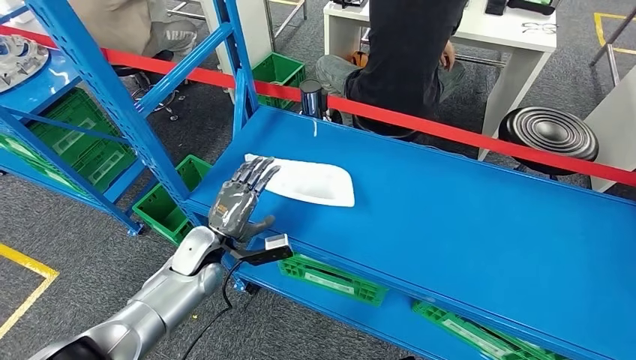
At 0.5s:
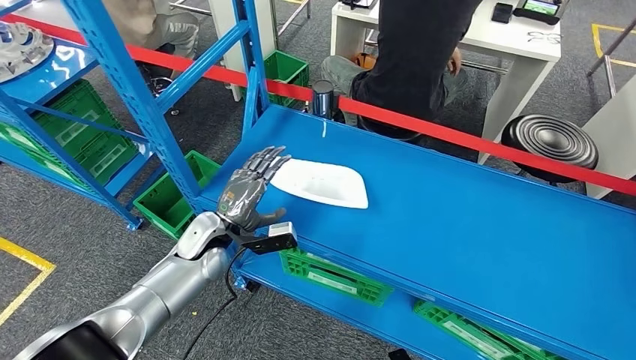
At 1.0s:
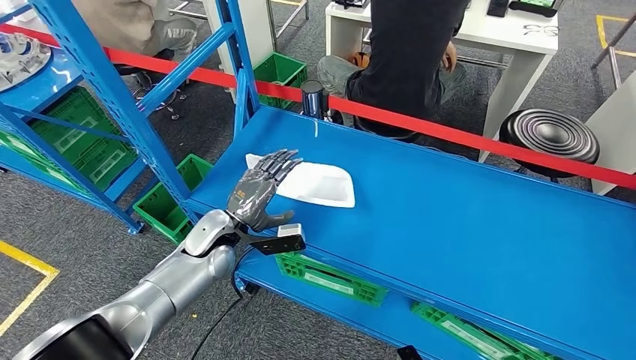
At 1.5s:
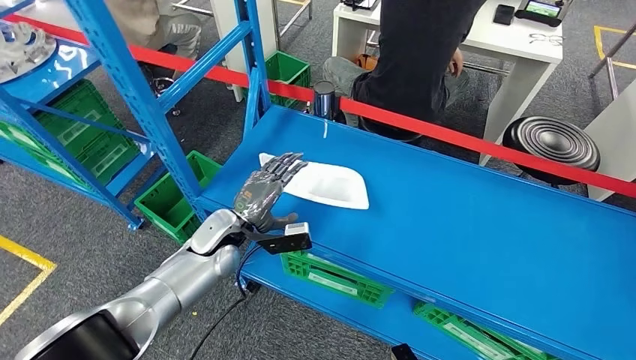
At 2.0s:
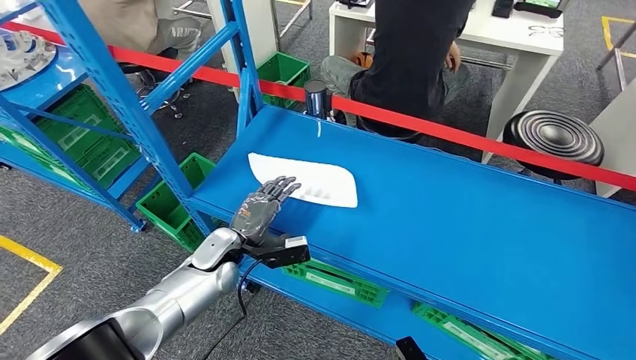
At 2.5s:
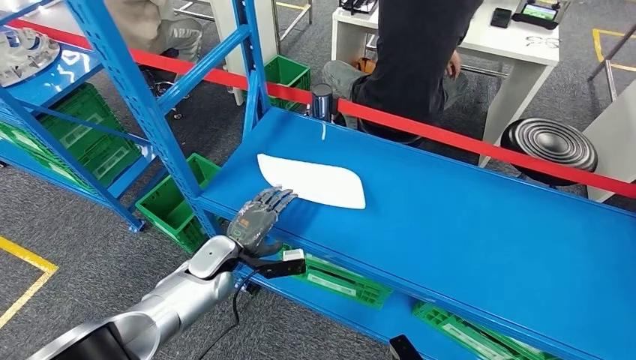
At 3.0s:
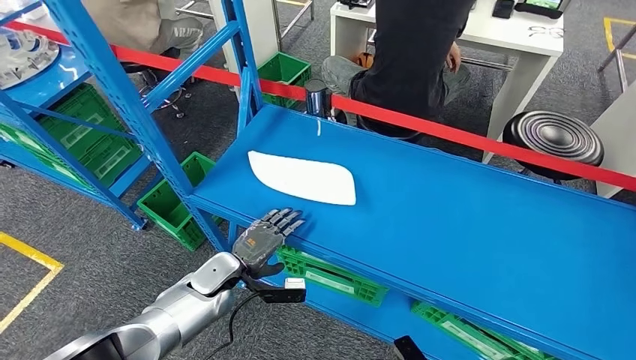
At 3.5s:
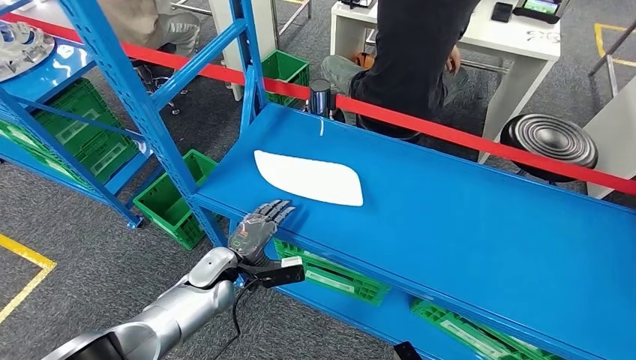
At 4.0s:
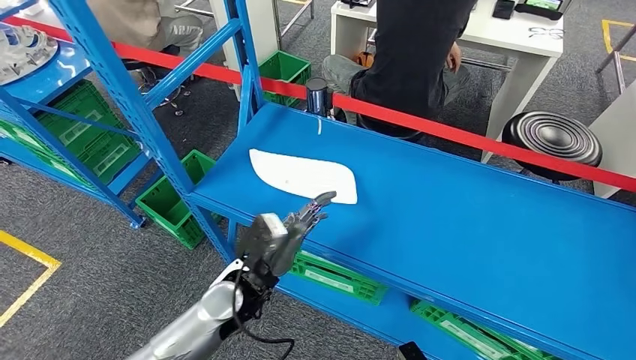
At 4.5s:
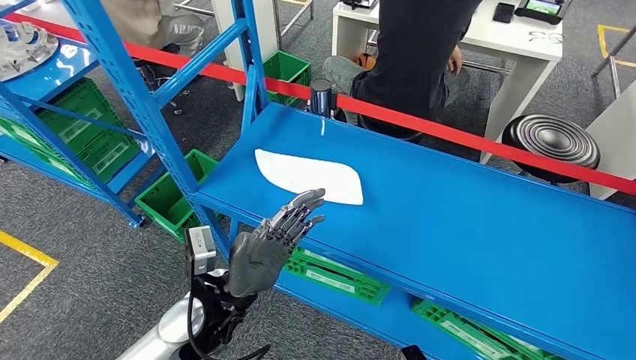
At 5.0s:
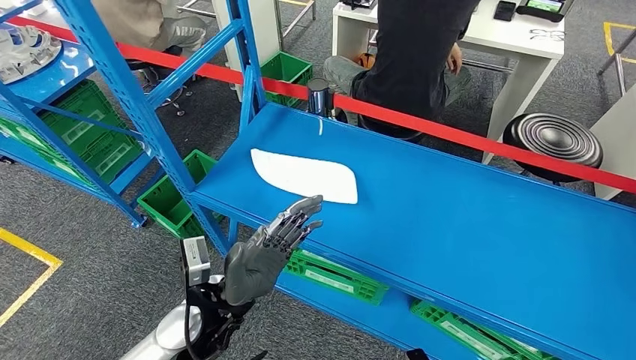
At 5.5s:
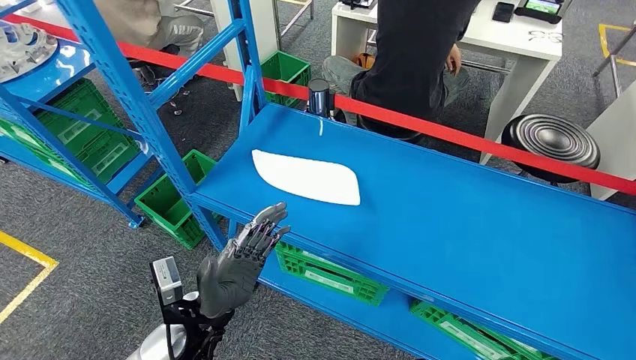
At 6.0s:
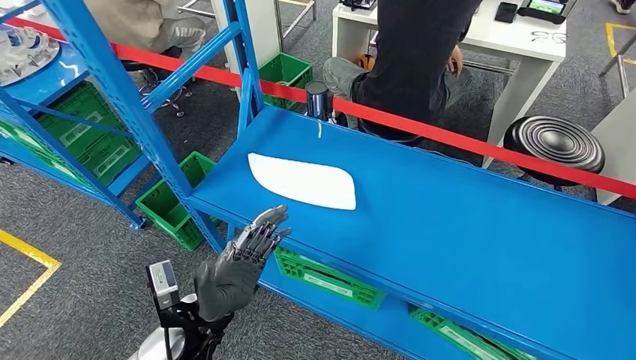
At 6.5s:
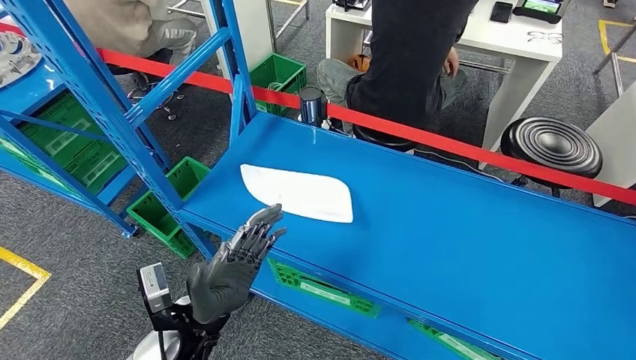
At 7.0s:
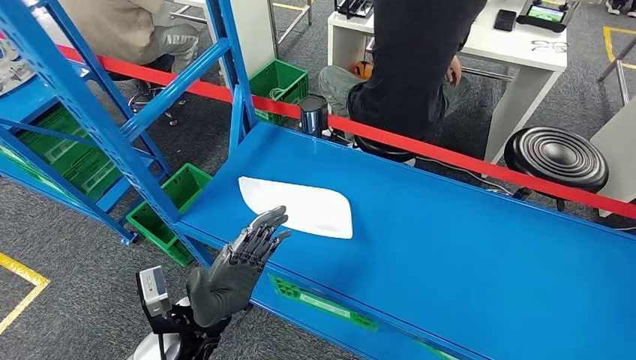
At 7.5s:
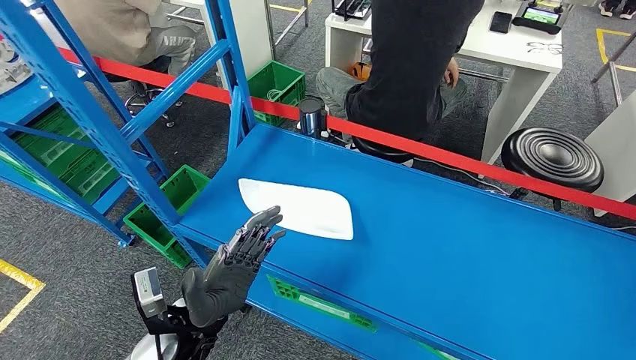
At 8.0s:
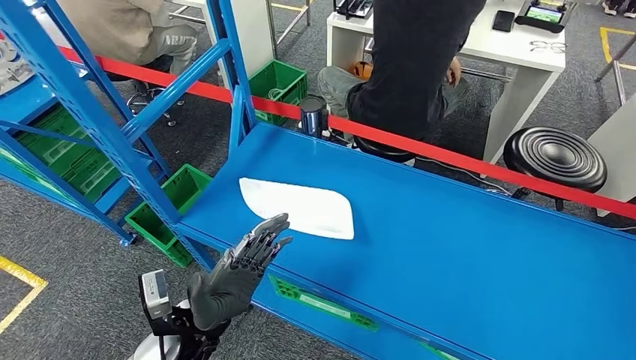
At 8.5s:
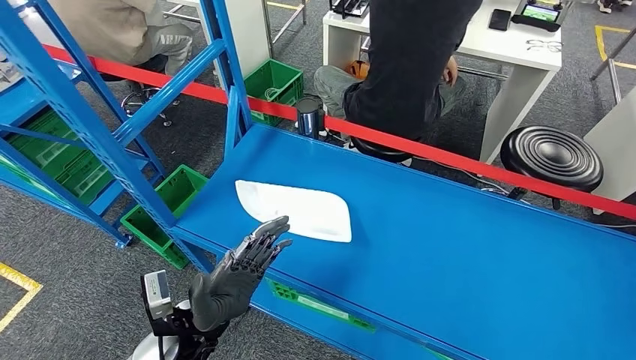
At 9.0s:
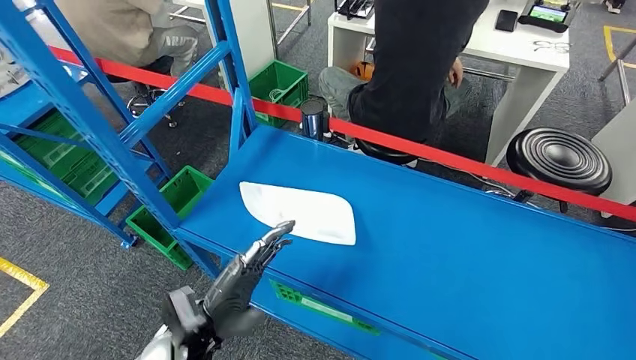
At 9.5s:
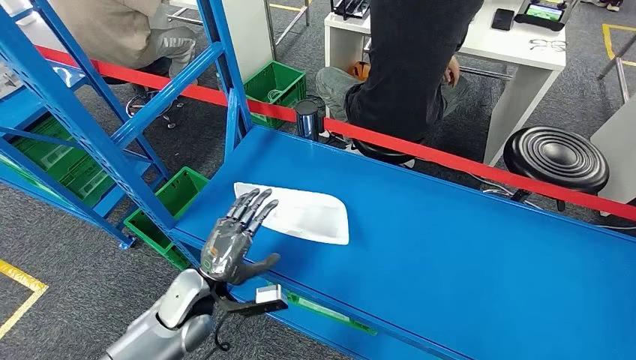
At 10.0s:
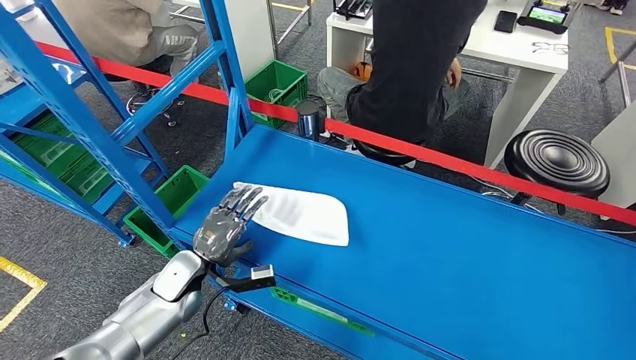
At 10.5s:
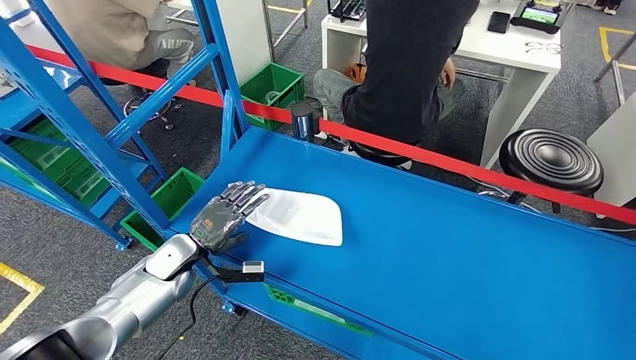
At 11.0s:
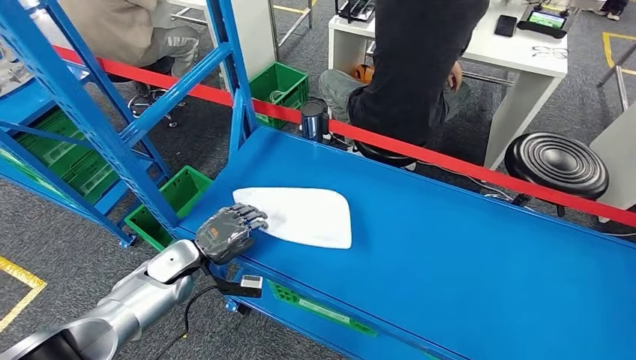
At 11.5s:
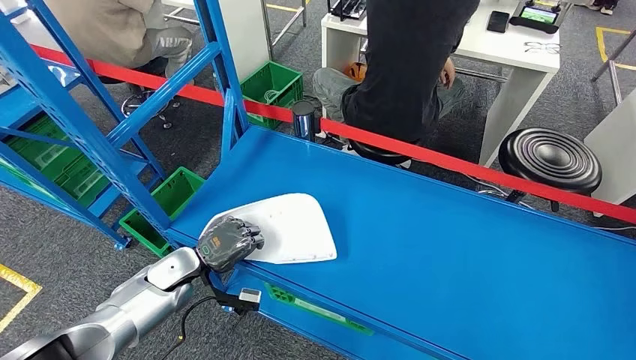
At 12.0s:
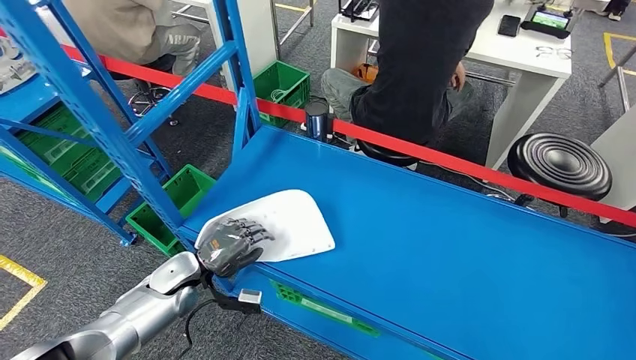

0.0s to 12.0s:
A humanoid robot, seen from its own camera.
2.0s to 4.0s: The left hand heads backward, to the right and upward, covering about 10 cm.
4.0s to 6.0s: The left hand goes some 10 cm backward and to the left.

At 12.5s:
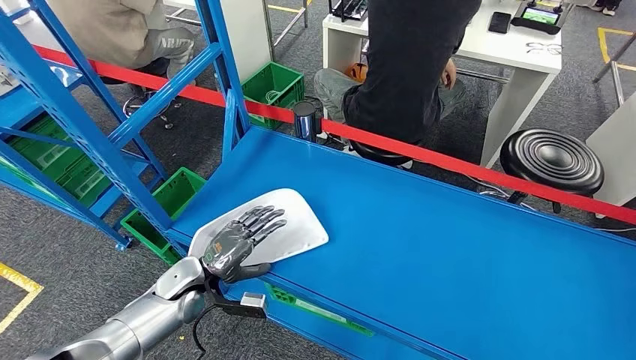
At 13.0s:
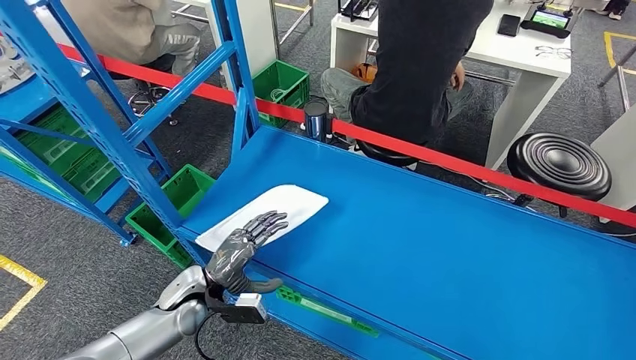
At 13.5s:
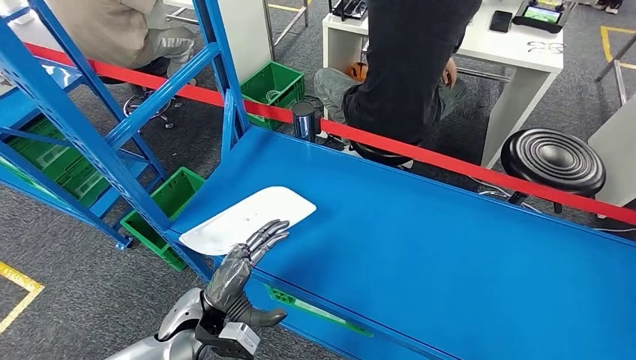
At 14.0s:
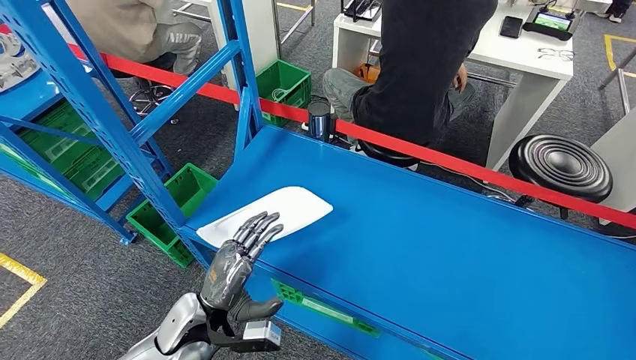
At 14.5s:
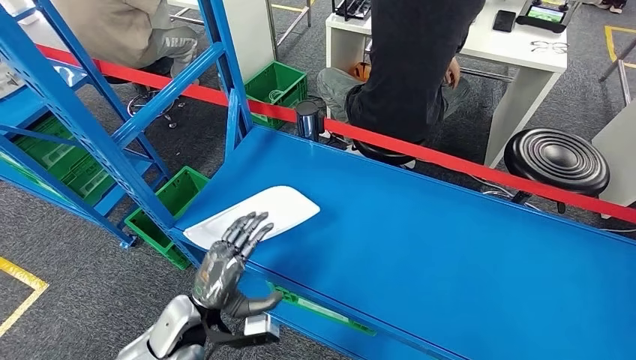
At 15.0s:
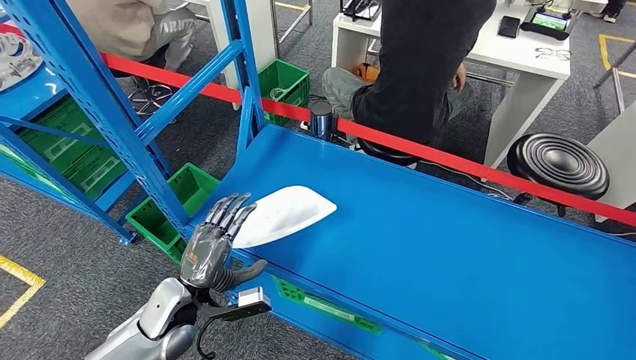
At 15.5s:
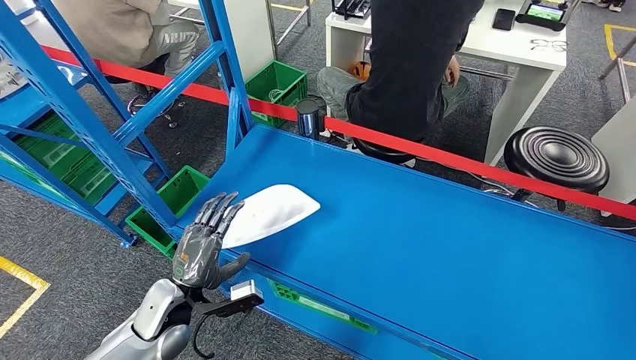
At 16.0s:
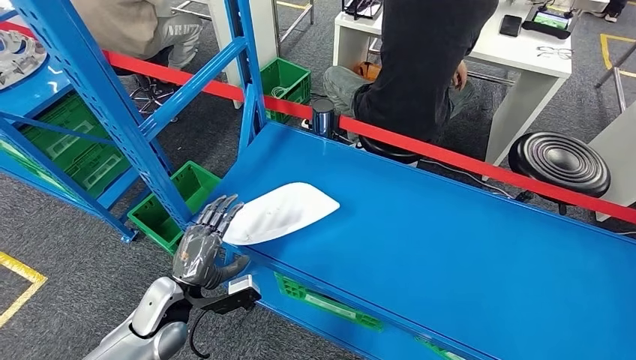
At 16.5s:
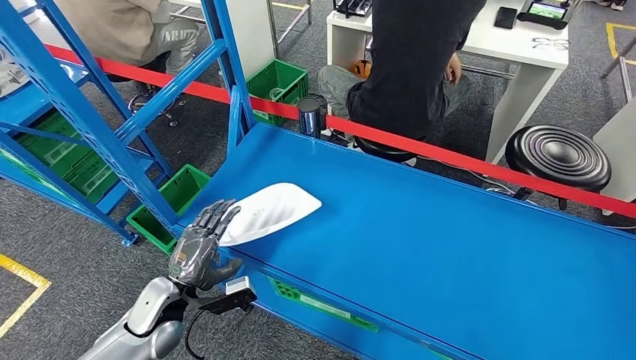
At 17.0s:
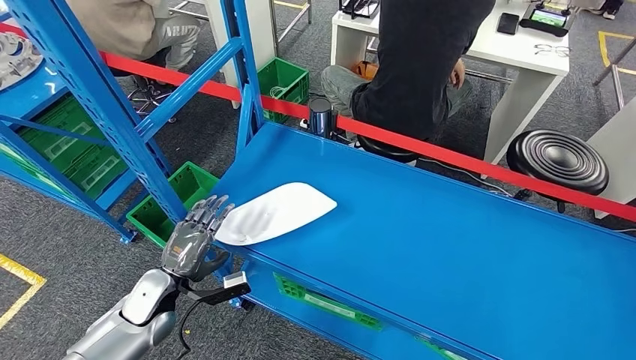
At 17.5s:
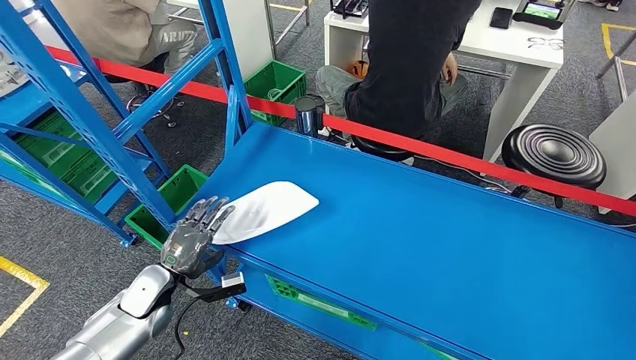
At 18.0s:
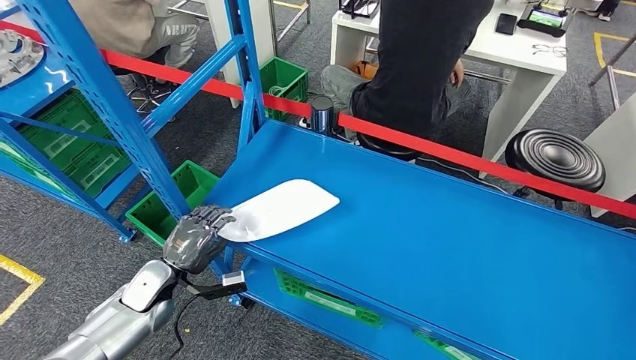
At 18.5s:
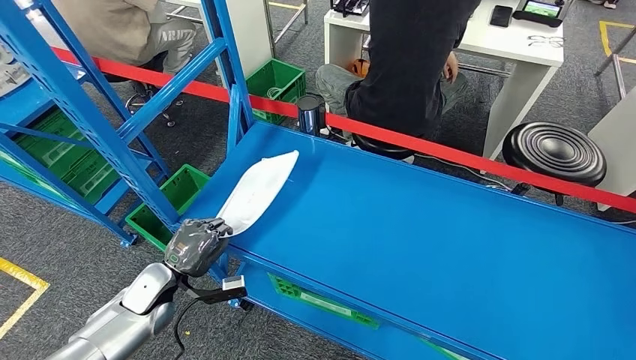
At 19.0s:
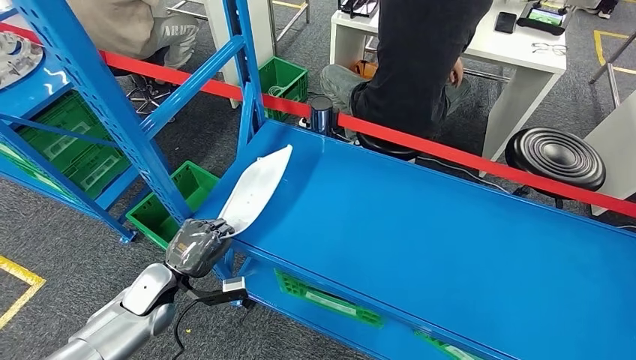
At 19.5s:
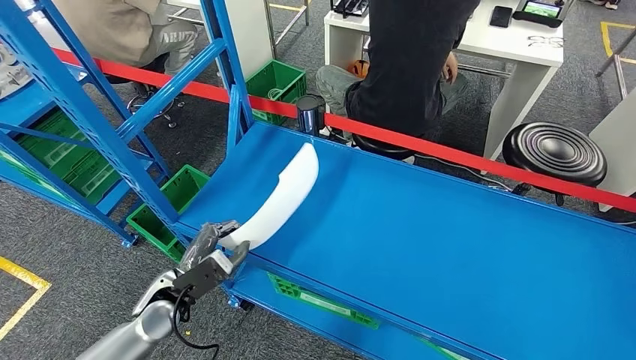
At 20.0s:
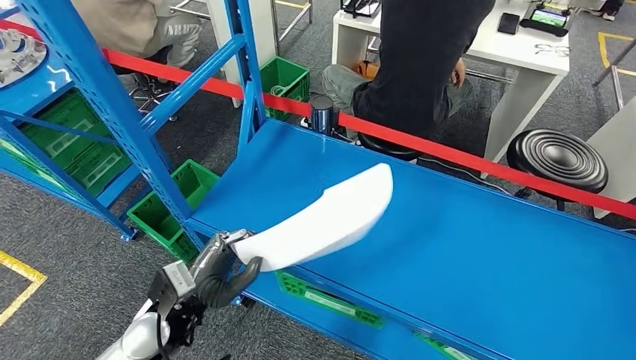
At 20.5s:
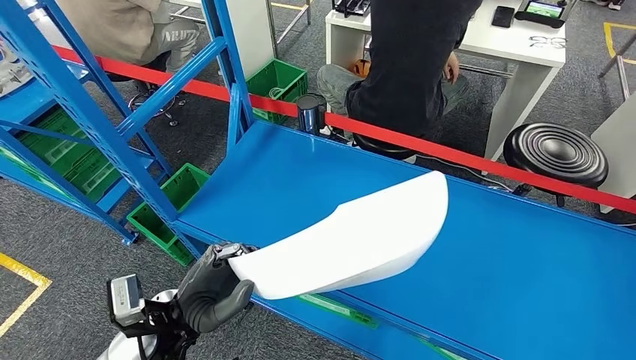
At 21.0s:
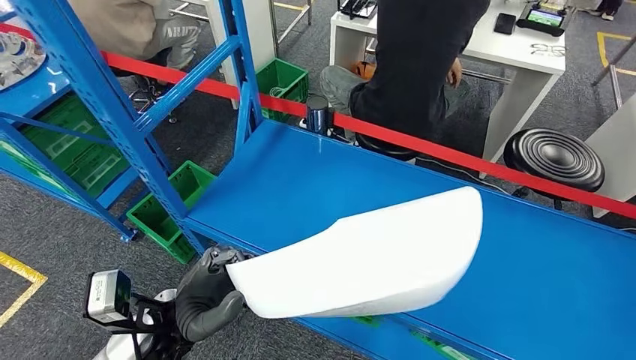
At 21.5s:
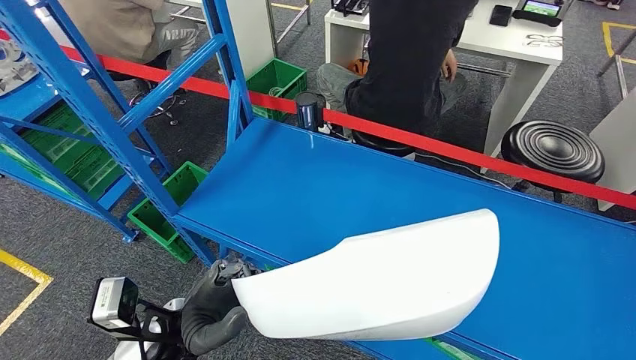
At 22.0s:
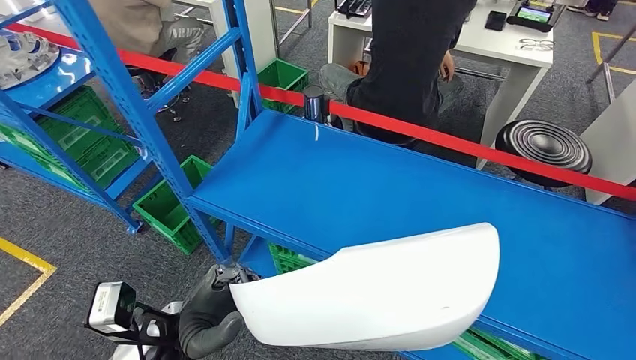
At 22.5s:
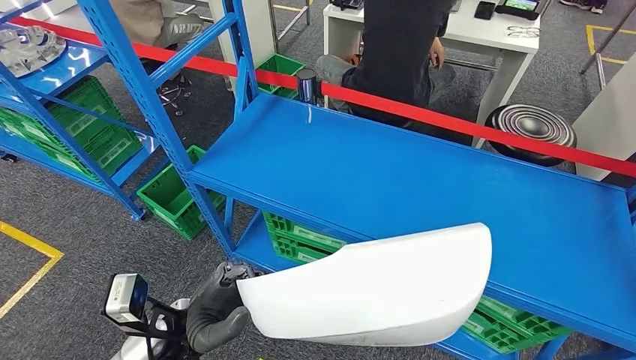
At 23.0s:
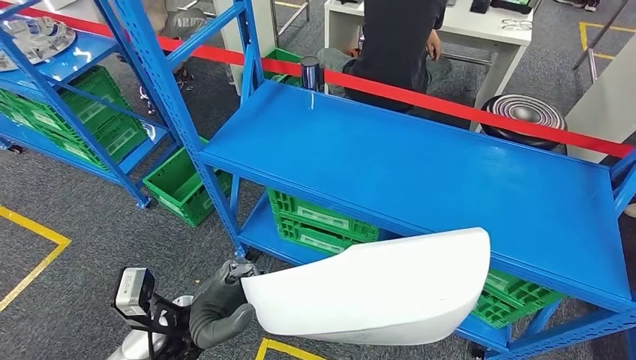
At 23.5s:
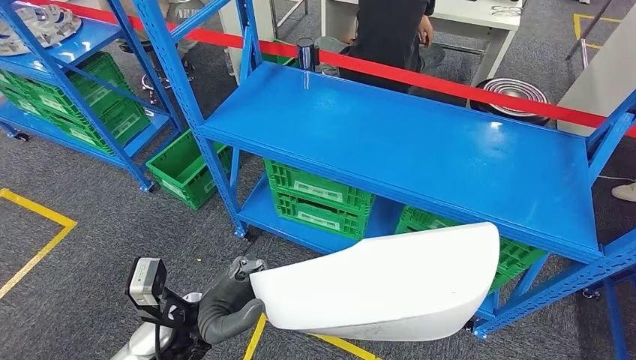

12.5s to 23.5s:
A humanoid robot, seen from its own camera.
Step, 12.5s to 22.0s: Pick up the small component from the shelf.
16.0s to 18.0s: The left hand shifts some 5 cm to the left.
18.0s to 20.0s: The left hand goes approximately 15 cm to the right, upward and backward.
